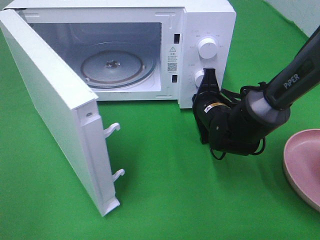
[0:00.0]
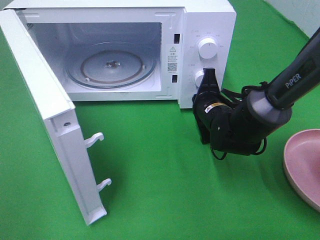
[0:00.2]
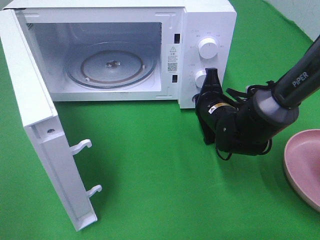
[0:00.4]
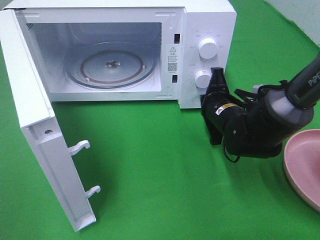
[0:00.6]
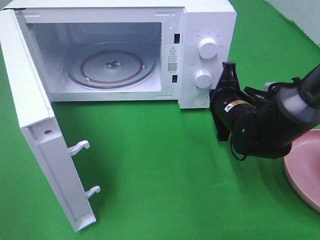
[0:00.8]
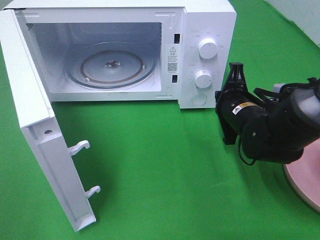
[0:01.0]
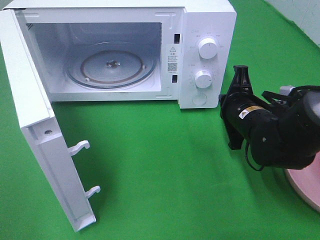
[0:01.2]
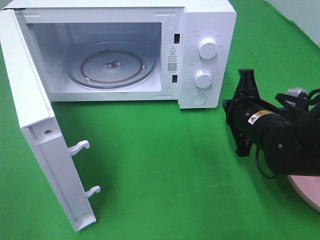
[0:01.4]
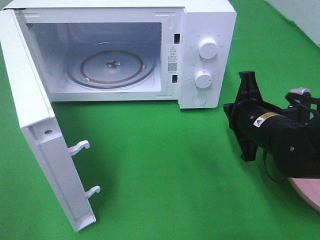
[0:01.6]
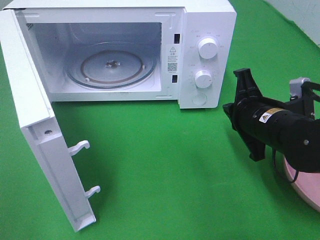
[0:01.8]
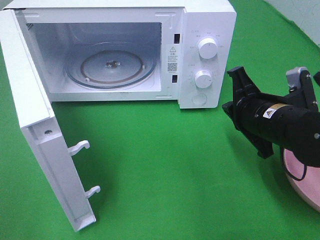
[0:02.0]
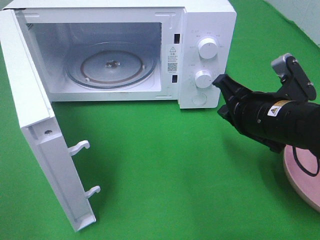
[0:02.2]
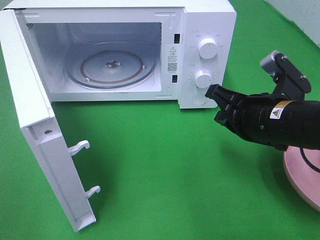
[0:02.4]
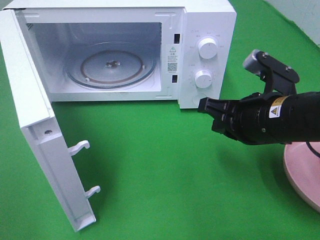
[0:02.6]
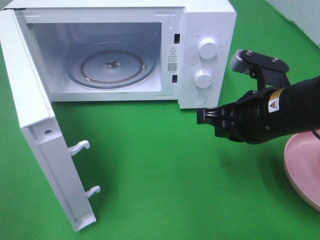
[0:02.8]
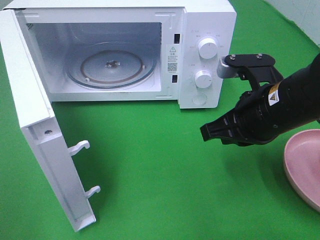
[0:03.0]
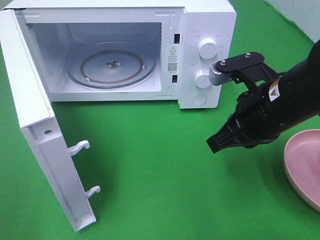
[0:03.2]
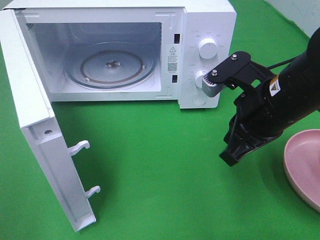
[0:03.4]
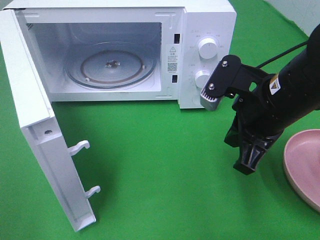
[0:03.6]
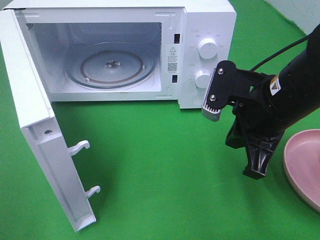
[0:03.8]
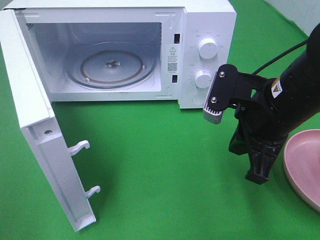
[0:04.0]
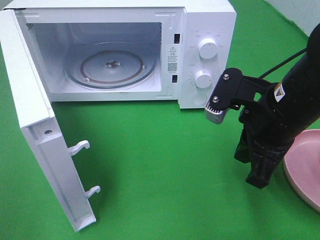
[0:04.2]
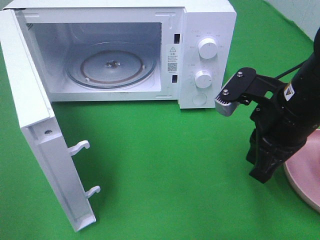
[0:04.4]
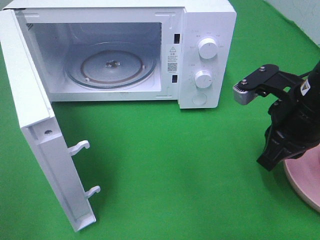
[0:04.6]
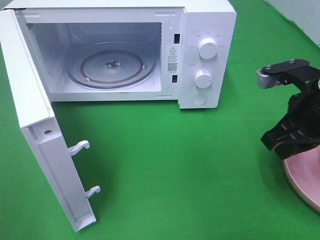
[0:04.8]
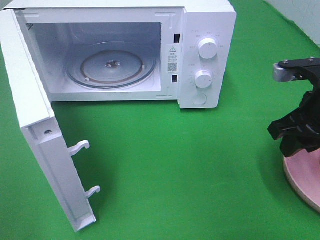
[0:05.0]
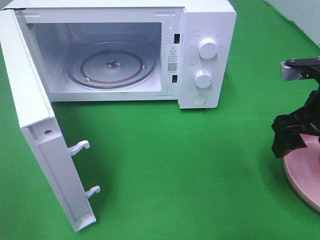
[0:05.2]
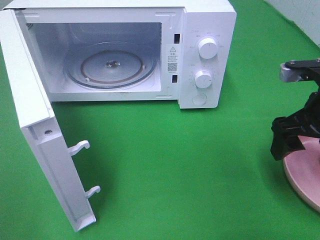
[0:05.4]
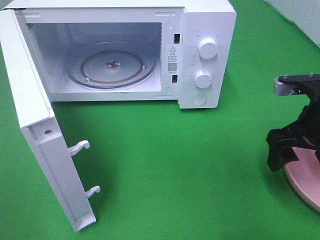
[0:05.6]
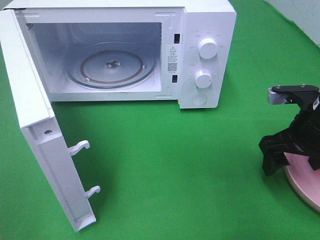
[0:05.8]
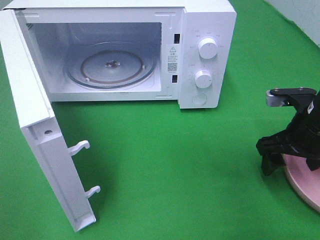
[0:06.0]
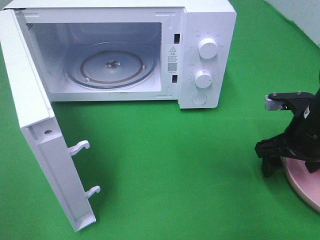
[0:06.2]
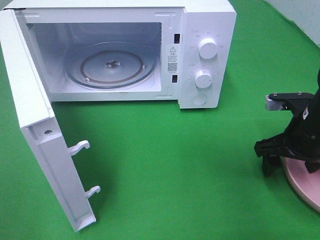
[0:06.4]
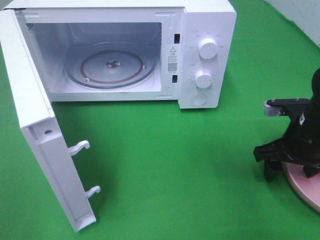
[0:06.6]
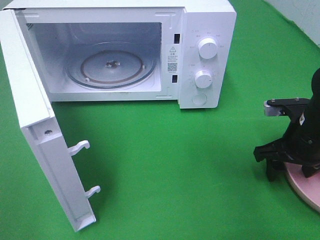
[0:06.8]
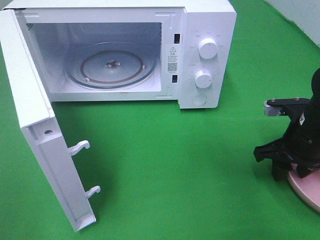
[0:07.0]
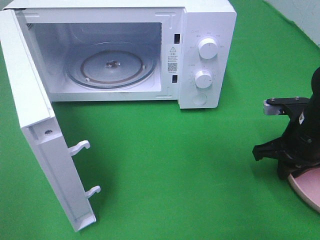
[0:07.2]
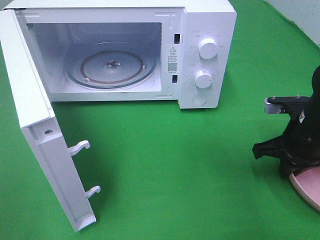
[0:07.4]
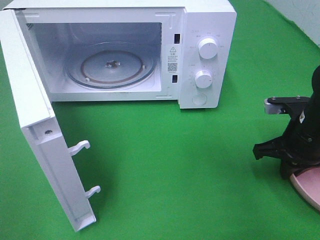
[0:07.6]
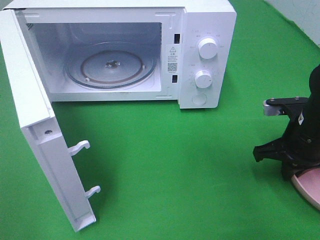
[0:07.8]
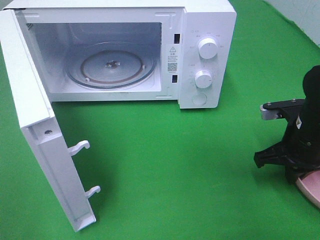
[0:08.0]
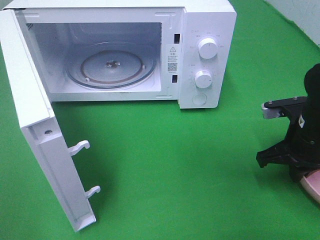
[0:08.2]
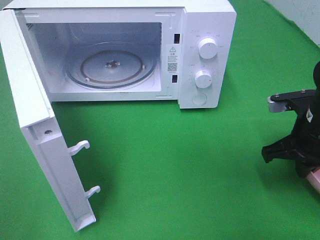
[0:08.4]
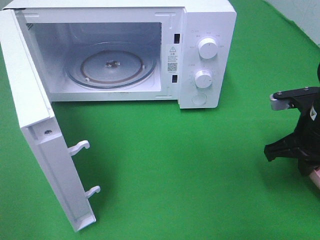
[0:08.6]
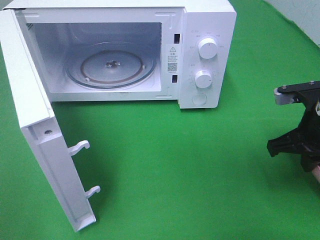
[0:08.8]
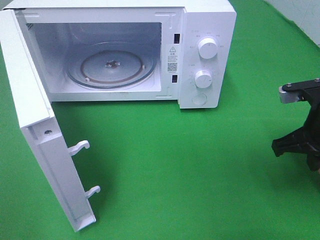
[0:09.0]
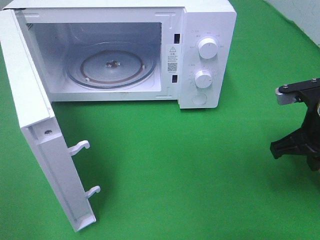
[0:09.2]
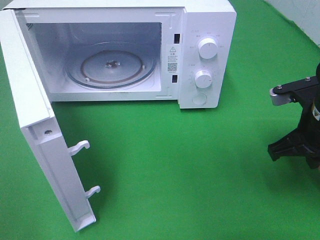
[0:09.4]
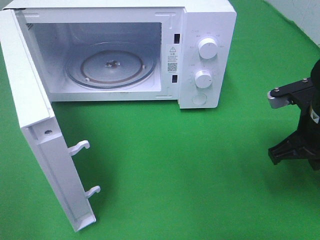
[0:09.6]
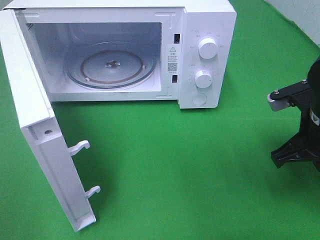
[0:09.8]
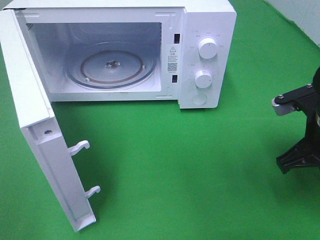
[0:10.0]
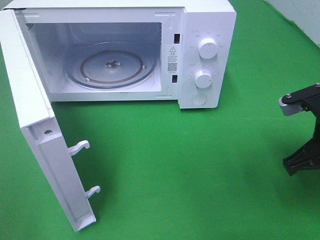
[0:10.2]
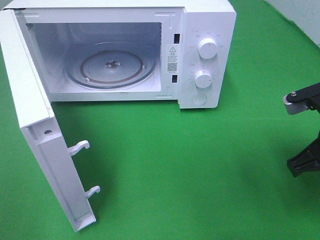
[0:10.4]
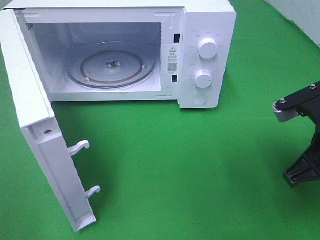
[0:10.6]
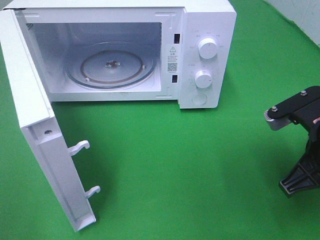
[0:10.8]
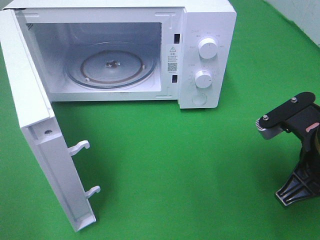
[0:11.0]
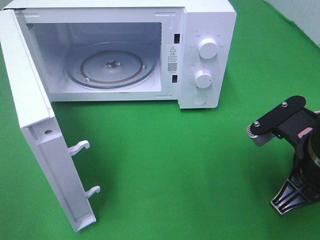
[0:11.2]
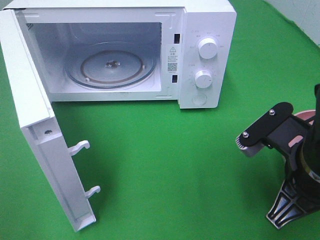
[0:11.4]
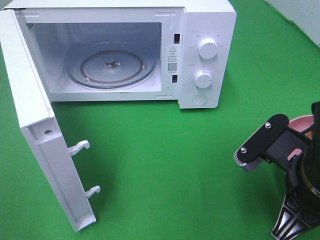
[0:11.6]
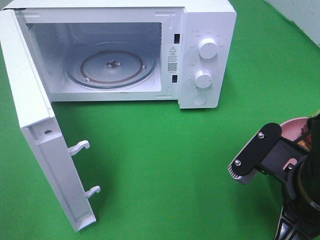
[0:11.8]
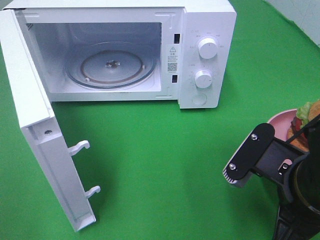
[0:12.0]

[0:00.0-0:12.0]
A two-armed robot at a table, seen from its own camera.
Task of the whole recording: Heat the burger.
Step, 0:01.0 to 0:07.6: Right hand: grab the plate with the hamburger.
0:00.0 to 0:01.6: The right gripper shifts some 10 cm backward and to the right.
0:01.6 to 0:03.0: The right gripper heads upward, covering roughly 5 cm.
0:04.4 to 0:06.0: The right gripper is displaced to the right and downward by approximately 10 cm, and opens its fingers.
0:06.0 to 0:07.6: The right gripper closes its fingers.
0:07.6 to 0:09.0: The right gripper heads upward, covering approximately 5 cm.
0:09.0 to 0:10.4: The grippers stay close to where they were, moving slightly.
0:10.4 to 0:12.0: The right gripper goes some 10 cm to the left and backward.

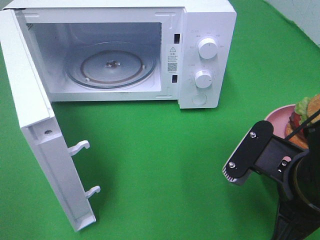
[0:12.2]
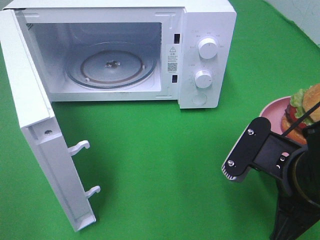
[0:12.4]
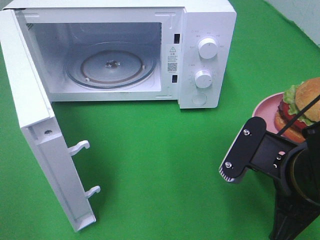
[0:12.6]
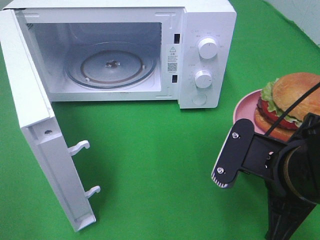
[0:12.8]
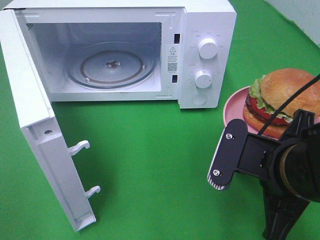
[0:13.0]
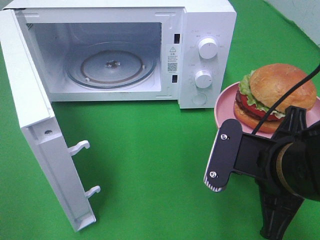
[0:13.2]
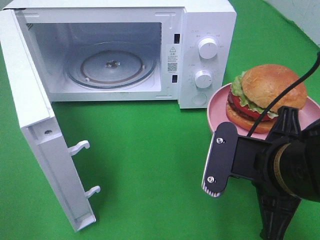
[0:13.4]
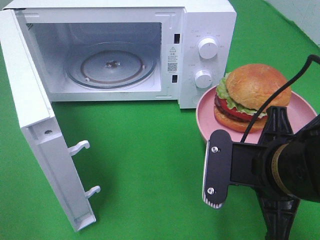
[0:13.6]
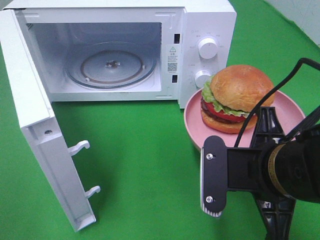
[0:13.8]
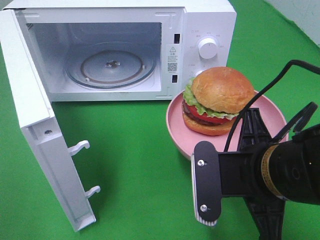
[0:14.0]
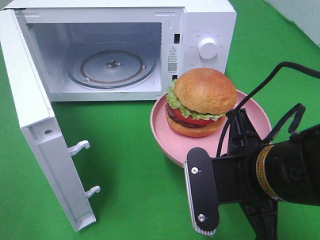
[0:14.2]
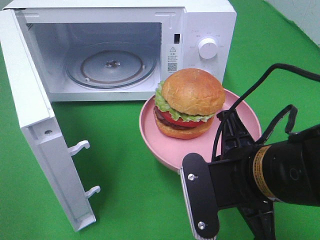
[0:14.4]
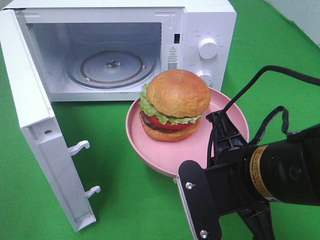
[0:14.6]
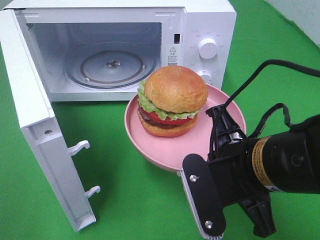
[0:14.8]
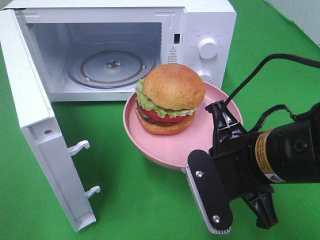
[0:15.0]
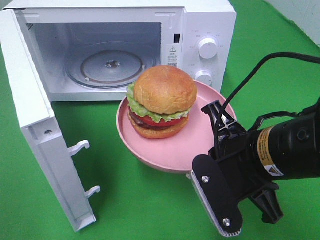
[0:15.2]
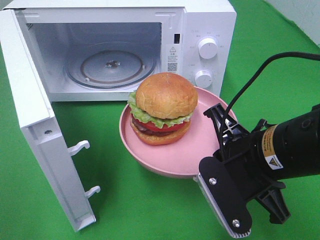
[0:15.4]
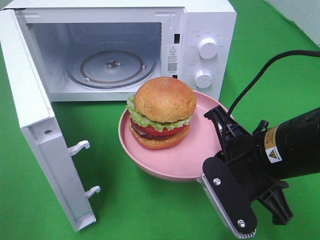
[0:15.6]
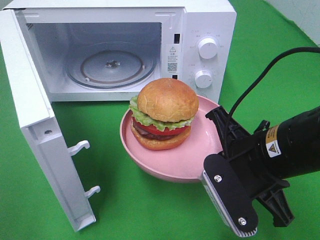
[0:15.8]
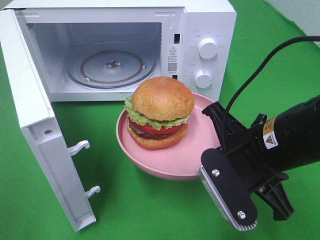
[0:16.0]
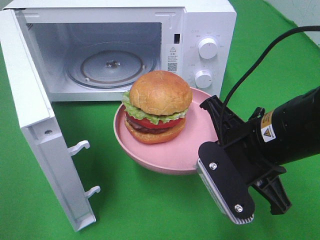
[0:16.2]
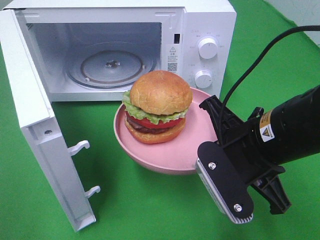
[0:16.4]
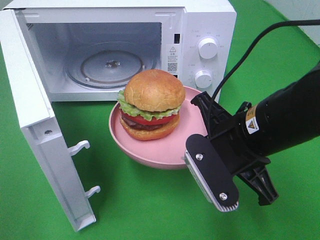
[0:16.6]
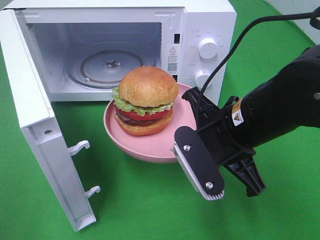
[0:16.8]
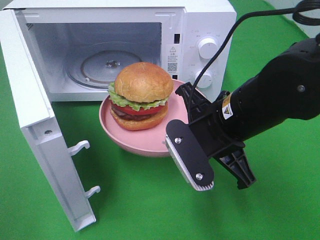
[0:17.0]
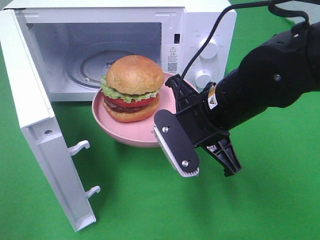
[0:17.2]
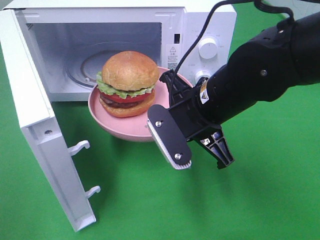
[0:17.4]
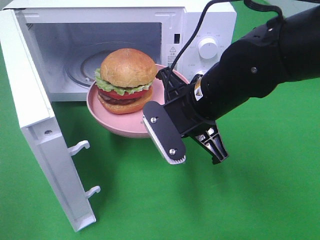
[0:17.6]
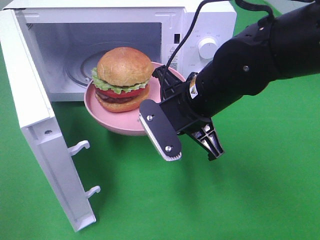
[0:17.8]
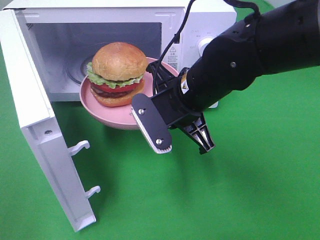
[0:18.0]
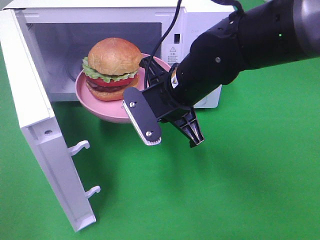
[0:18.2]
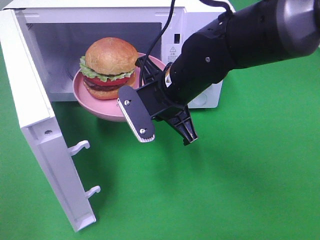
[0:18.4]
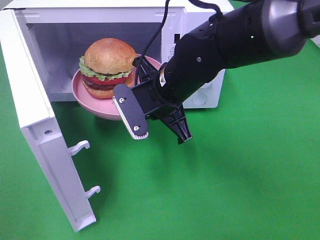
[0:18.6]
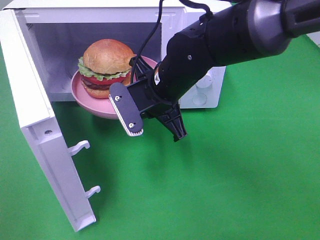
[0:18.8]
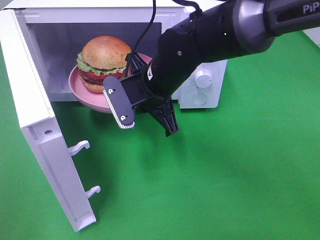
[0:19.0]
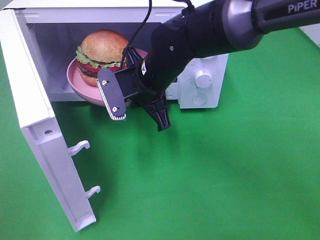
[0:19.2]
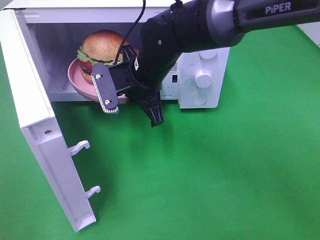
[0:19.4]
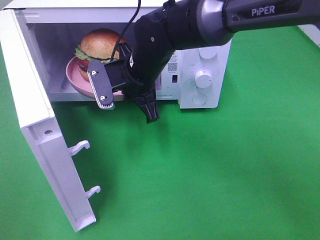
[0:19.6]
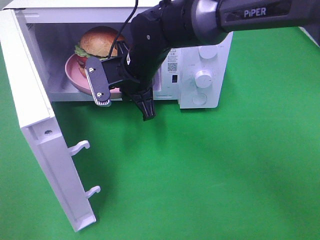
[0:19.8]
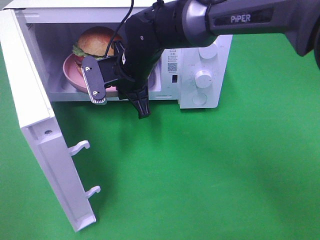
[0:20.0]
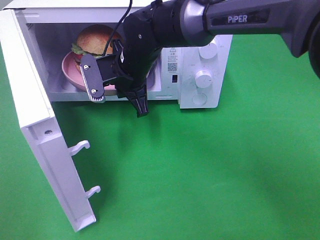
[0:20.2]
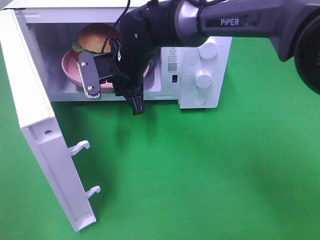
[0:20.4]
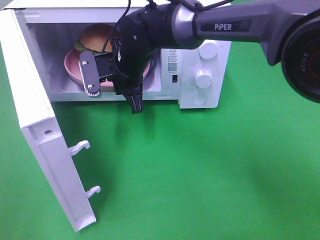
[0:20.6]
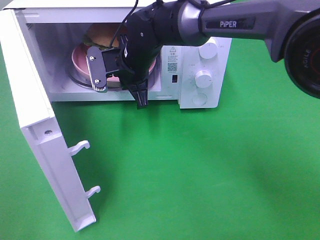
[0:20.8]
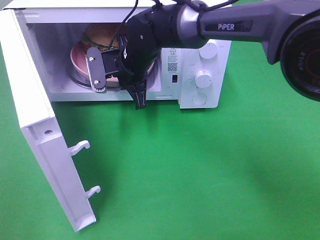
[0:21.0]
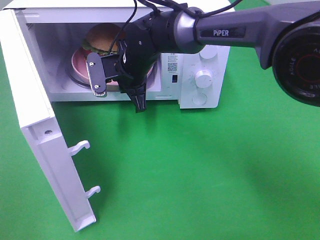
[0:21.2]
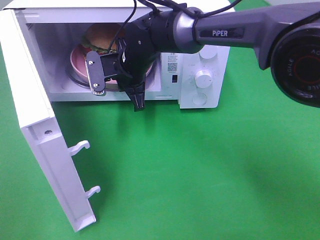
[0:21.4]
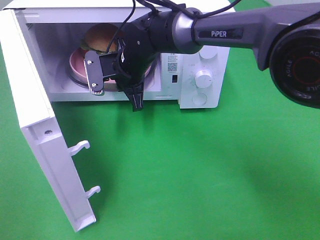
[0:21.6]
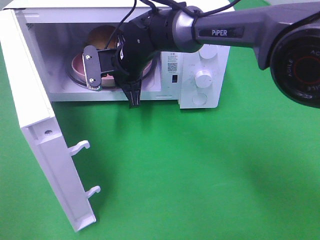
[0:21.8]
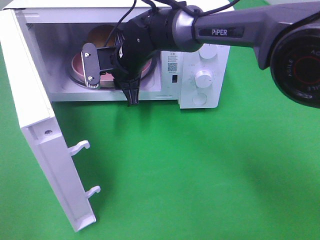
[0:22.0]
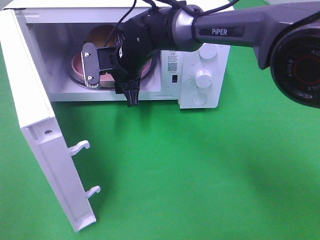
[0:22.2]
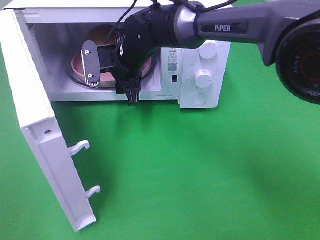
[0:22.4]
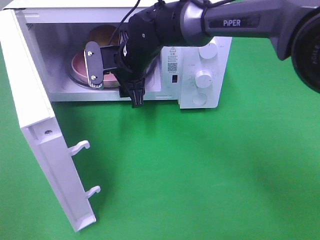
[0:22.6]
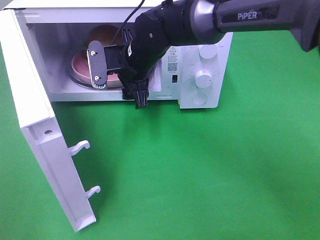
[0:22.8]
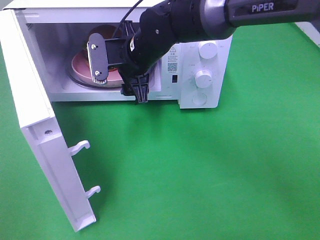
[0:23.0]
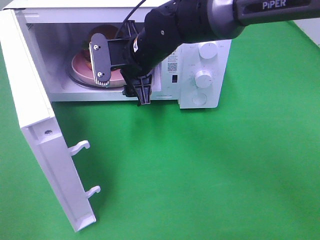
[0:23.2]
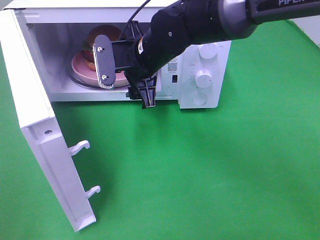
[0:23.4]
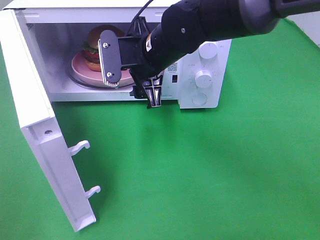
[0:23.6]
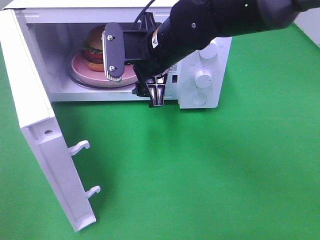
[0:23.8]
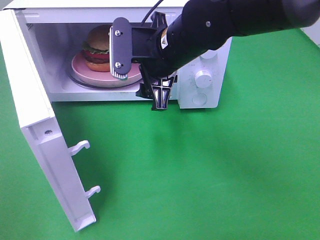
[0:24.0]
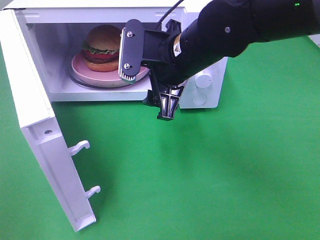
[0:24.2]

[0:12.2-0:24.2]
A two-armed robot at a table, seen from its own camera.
Task of the whole recording: Heat the burger.
Step, 0:12.2 to 0:22.8: Right hand: place the plate in the microwave.
0:15.2 to 0:16.6: The grippers move only a little.
0:16.6 to 0:18.2: The right gripper is displaced forward and to the left by some 10 cm.
0:18.2 to 0:19.8: The right gripper goes approximately 10 cm forward and to the left.
0:19.8 to 0:21.2: The right gripper changes place by approximately 5 cm.
0:21.2 to 0:22.6: The right gripper opens up.
0:22.6 to 0:24.2: The right gripper is displaced backward, to the right and upward by approximately 15 cm.
